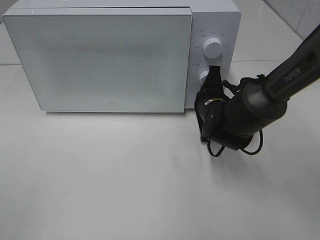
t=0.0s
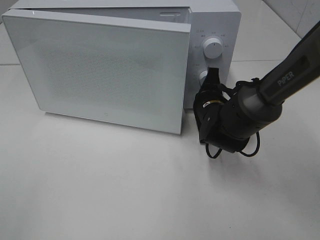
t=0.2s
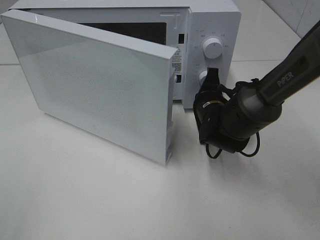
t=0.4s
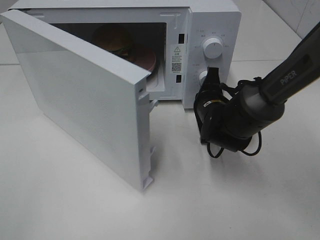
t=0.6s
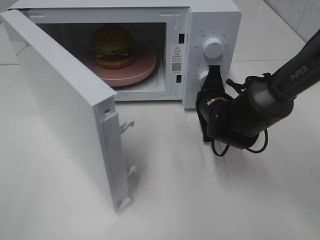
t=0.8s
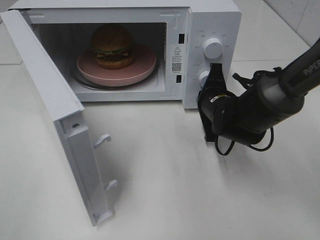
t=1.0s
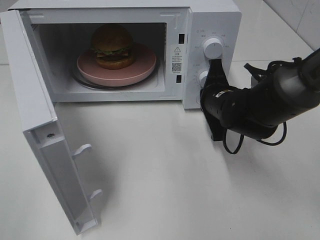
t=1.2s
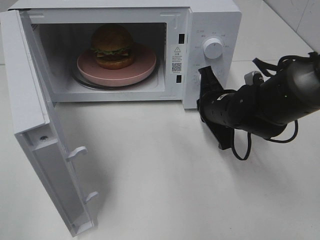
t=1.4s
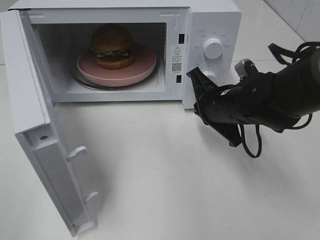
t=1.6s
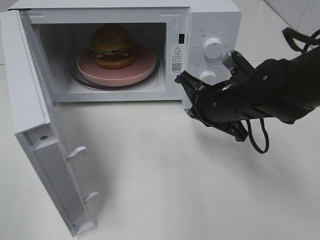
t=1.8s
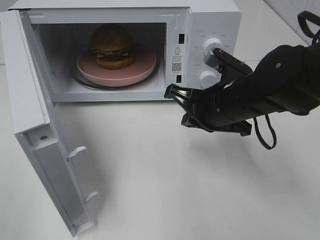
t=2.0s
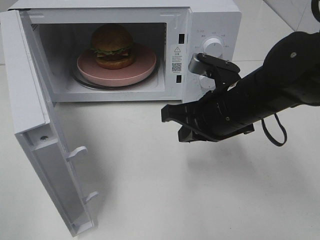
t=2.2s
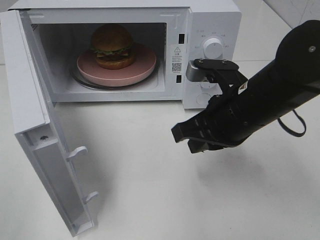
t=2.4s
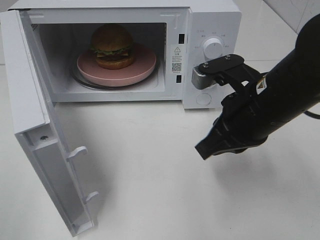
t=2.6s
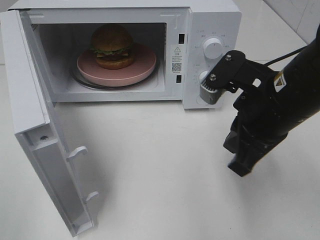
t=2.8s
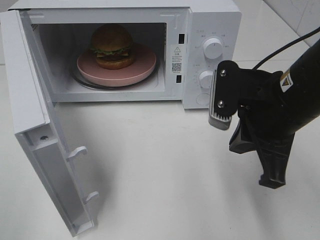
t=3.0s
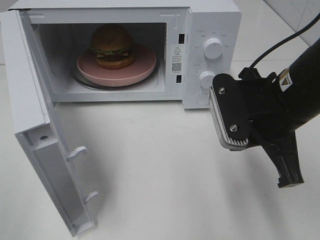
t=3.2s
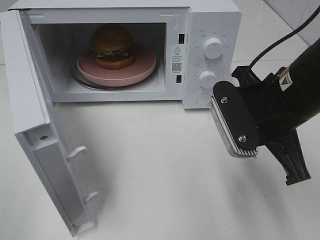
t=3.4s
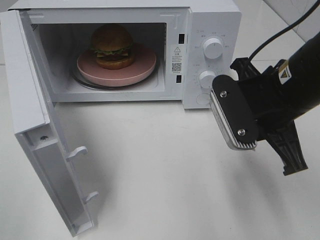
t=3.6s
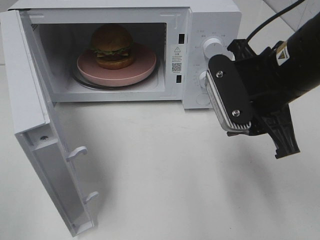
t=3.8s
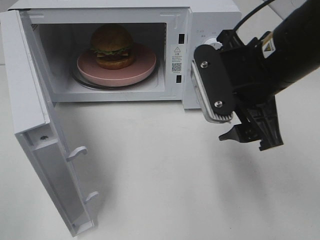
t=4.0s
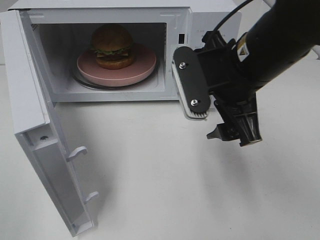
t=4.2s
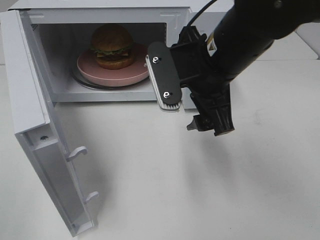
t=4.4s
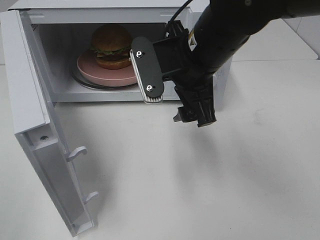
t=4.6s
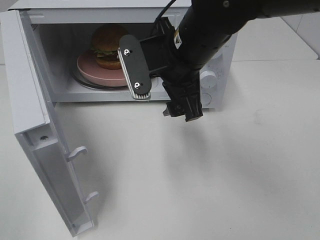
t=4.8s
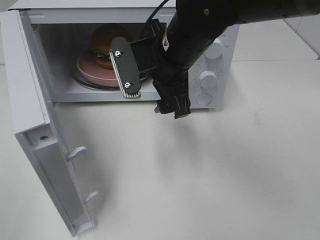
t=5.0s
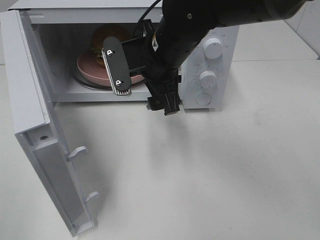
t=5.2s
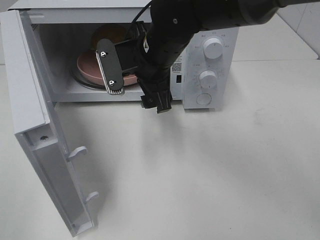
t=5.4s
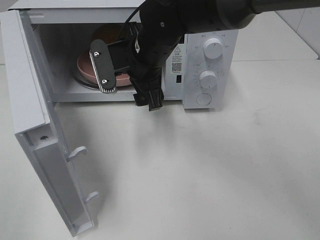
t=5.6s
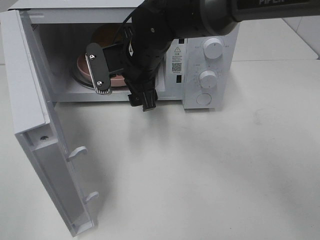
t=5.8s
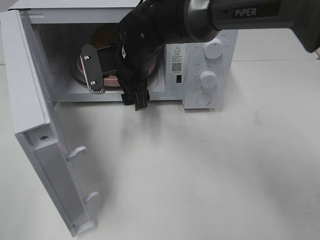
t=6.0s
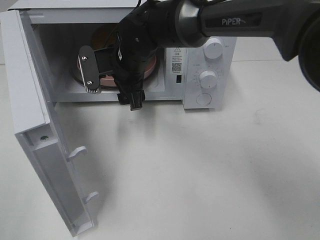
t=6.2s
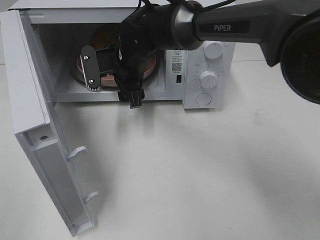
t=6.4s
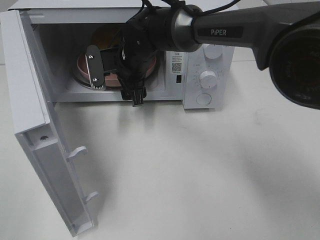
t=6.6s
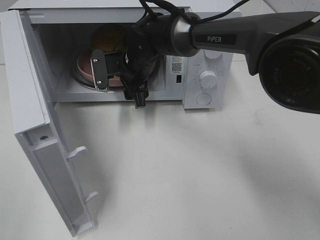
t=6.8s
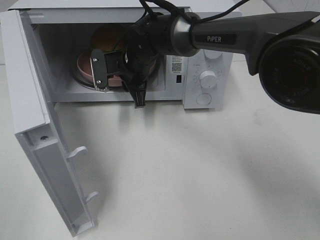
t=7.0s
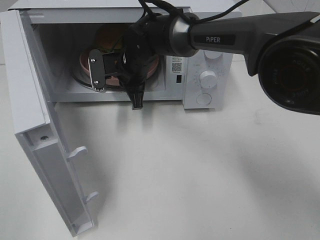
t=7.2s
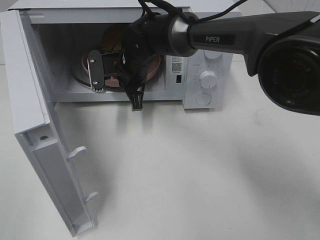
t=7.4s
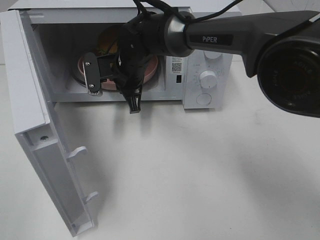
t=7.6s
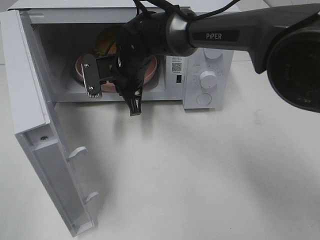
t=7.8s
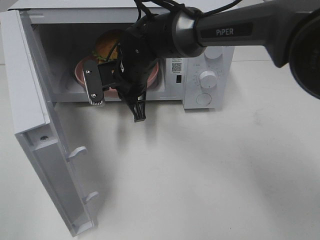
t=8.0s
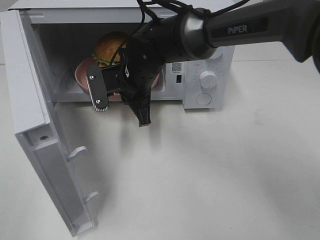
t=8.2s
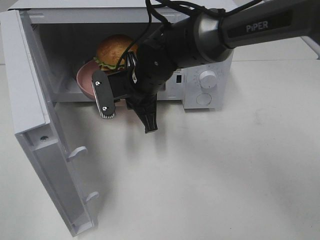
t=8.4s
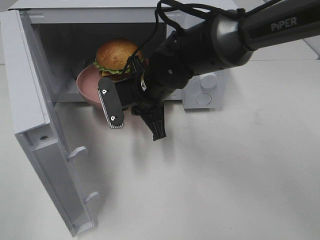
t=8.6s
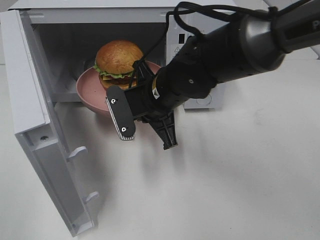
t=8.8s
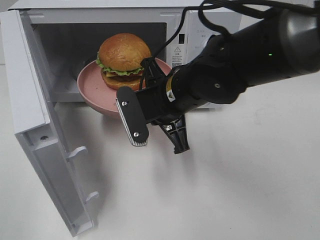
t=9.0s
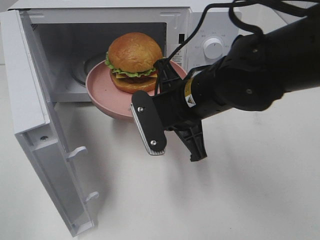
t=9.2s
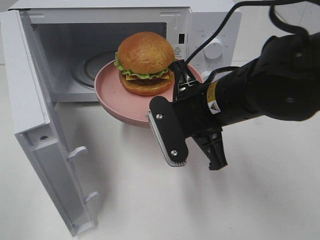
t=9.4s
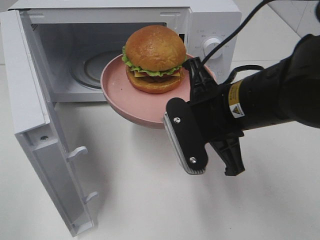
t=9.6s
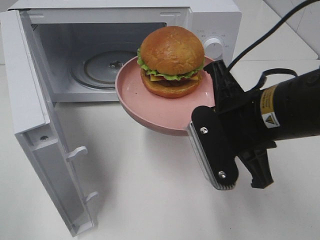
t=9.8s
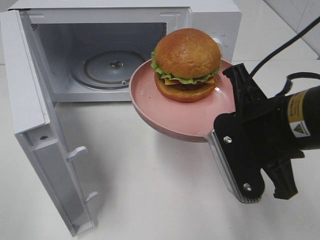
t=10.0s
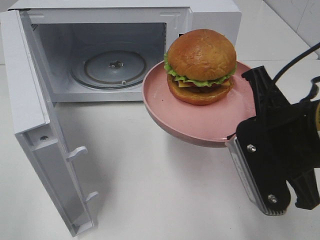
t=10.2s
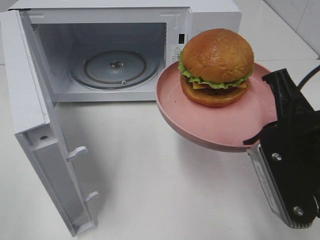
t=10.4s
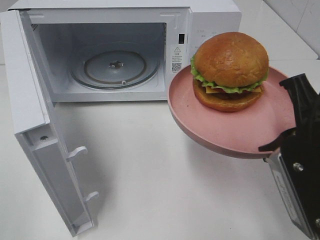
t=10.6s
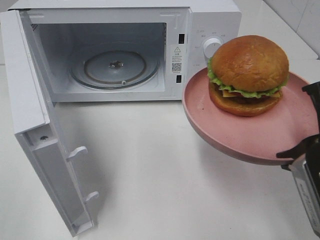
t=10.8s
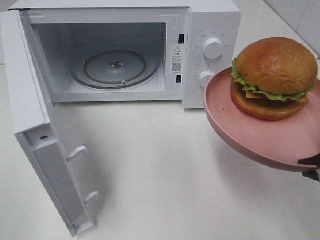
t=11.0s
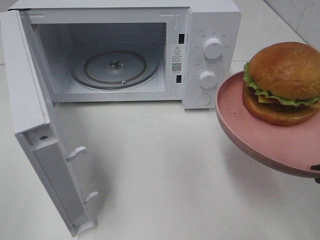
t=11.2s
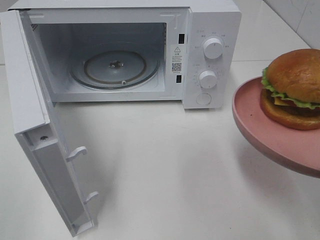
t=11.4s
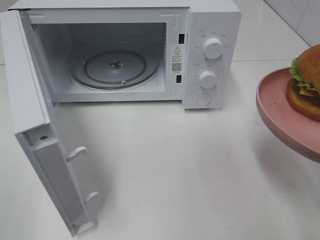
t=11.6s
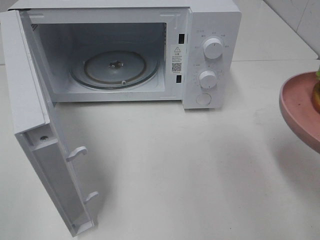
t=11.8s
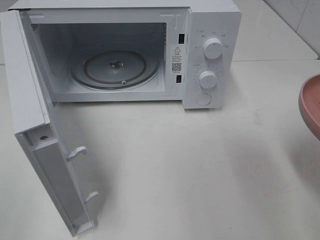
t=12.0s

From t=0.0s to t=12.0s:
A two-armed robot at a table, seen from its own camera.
Task of the whole recording: Heat the burger.
Step, from t=1.2s to t=7.2s: Right hand: grab the plate with the hamburger.
From t=0.0s to t=1.6s: The right gripper moves upward, roughly 5 cm.
From t=1.6s to t=3.0s: The right gripper goes some 15 cm upward and backward.
From t=3.0s to t=4.4s: The right gripper shifts roughly 10 cm to the left and forward, and opens its fingers.
From t=4.4s to t=6.0s: The right gripper is displaced forward, to the left and downward by about 15 cm.
From t=6.0s to t=7.6s: The right gripper changes place by approximately 5 cm, and closes up.
From t=7.6s to t=9.0s: The right gripper travels backward and to the right by approximately 15 cm.
From t=9.0s to t=10.4s: The right gripper heads backward, to the right and upward, covering approximately 20 cm.
From t=10.4s to t=12.0s: The right gripper heads to the right, covering some 10 cm.

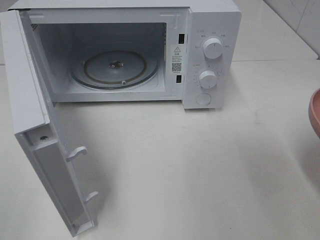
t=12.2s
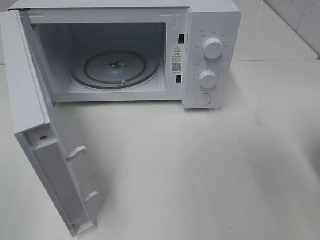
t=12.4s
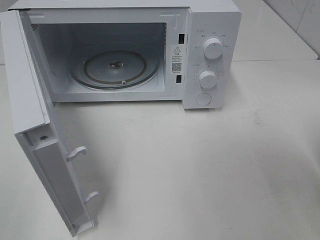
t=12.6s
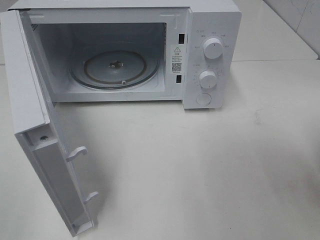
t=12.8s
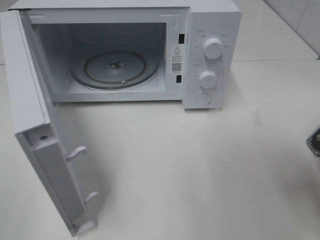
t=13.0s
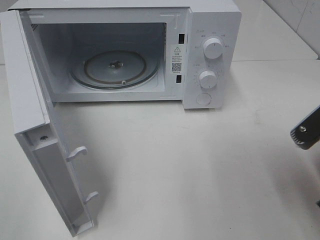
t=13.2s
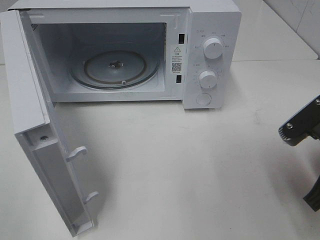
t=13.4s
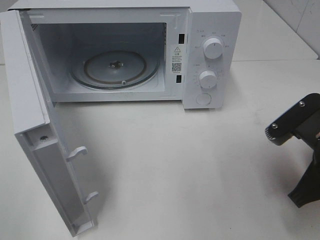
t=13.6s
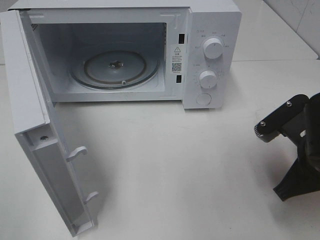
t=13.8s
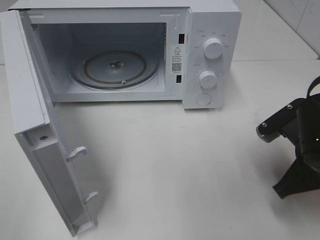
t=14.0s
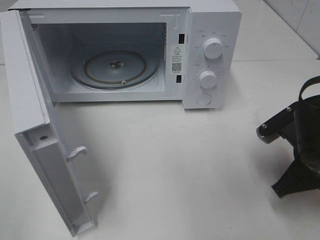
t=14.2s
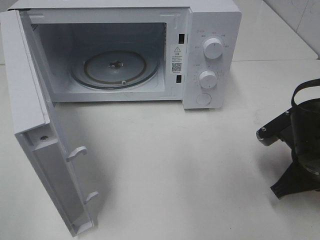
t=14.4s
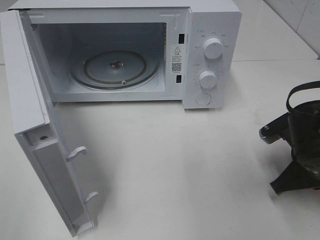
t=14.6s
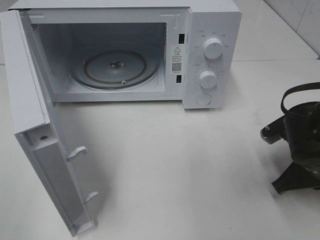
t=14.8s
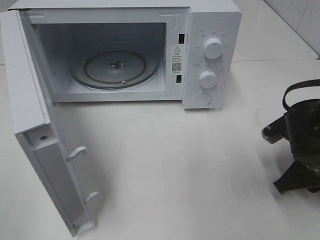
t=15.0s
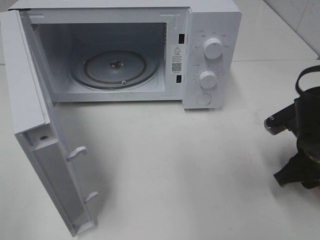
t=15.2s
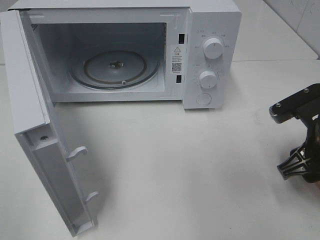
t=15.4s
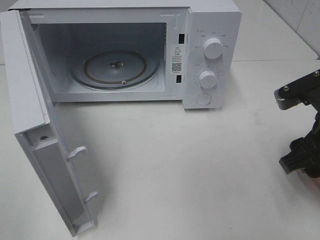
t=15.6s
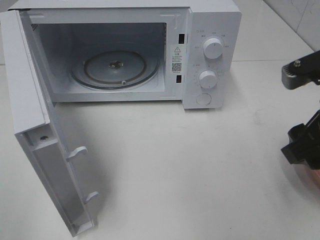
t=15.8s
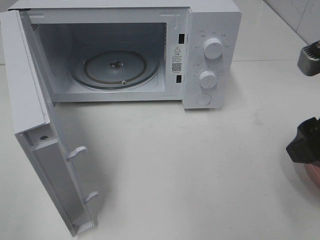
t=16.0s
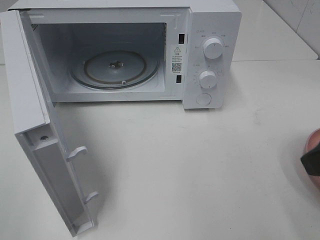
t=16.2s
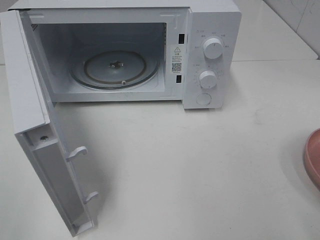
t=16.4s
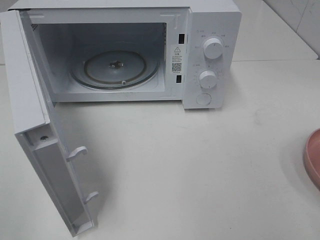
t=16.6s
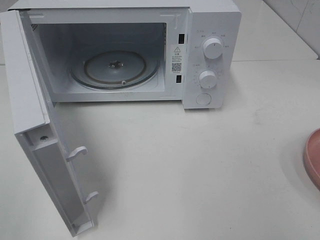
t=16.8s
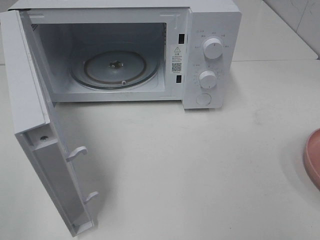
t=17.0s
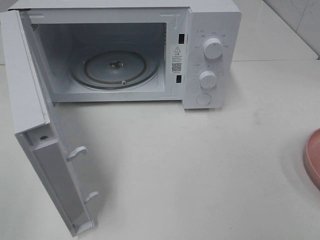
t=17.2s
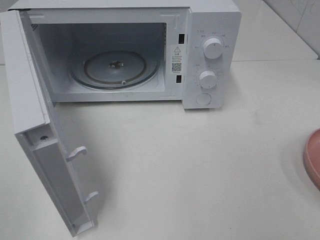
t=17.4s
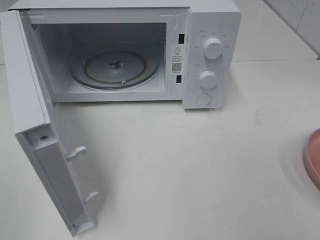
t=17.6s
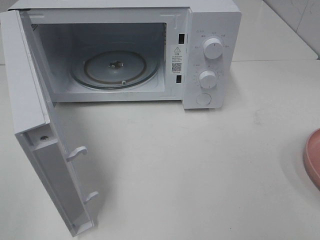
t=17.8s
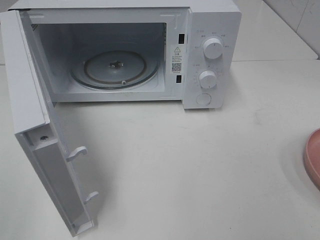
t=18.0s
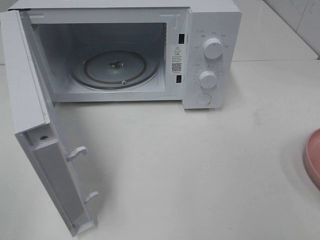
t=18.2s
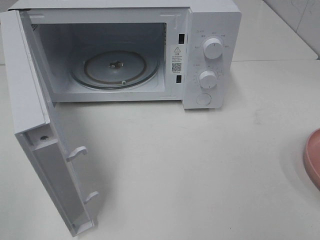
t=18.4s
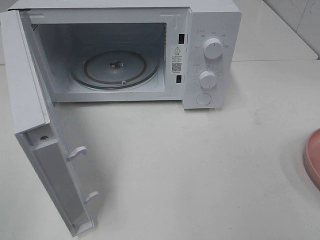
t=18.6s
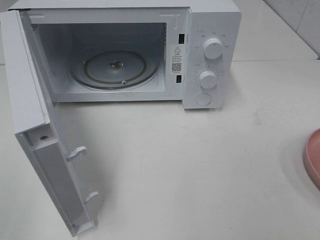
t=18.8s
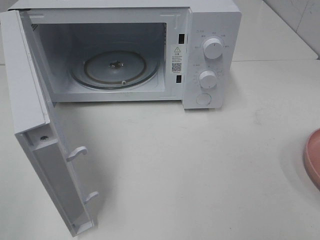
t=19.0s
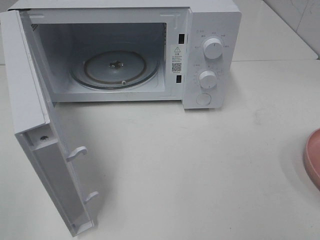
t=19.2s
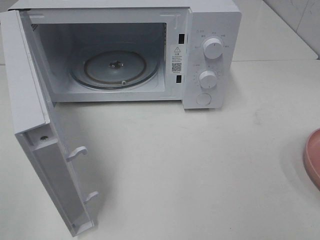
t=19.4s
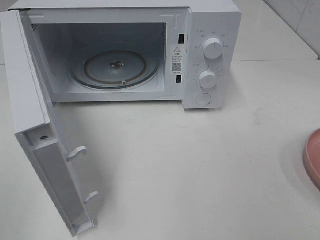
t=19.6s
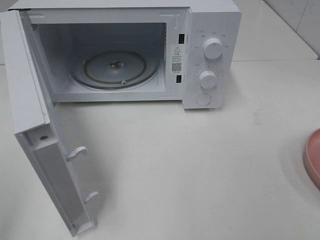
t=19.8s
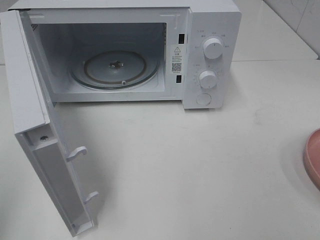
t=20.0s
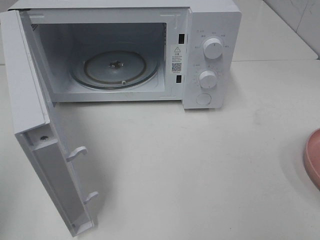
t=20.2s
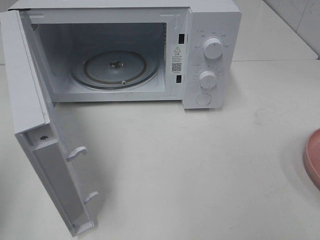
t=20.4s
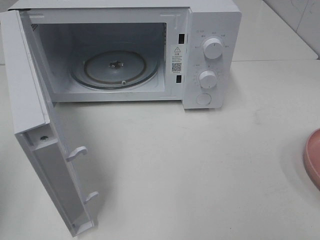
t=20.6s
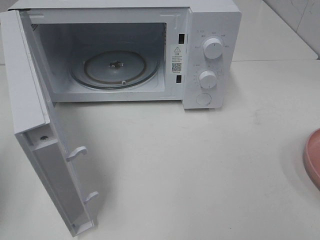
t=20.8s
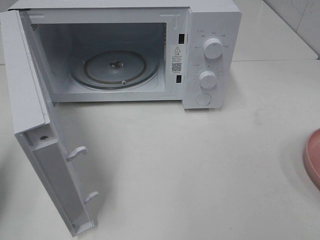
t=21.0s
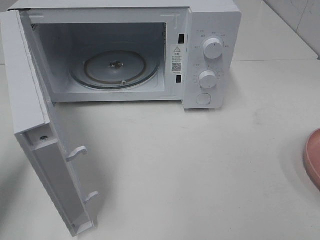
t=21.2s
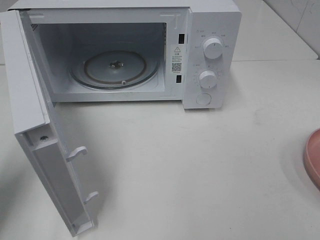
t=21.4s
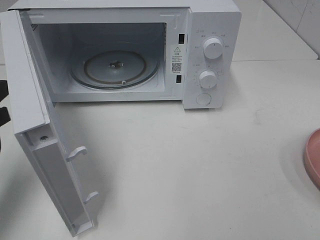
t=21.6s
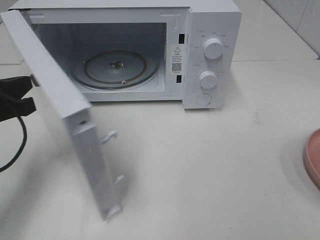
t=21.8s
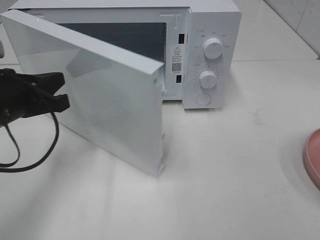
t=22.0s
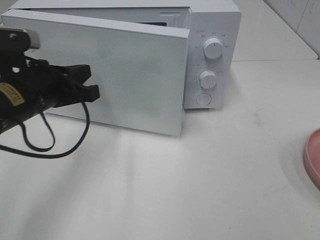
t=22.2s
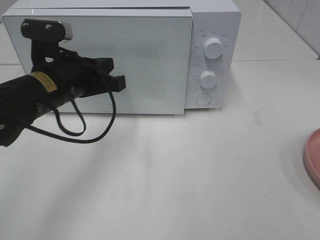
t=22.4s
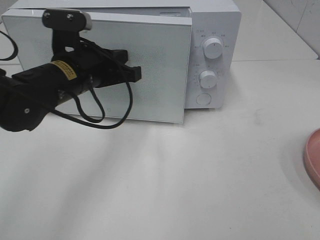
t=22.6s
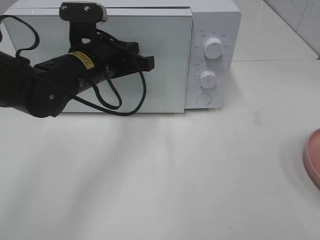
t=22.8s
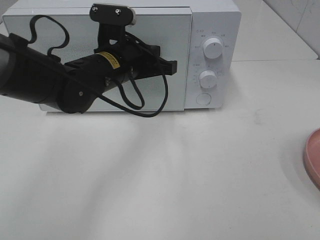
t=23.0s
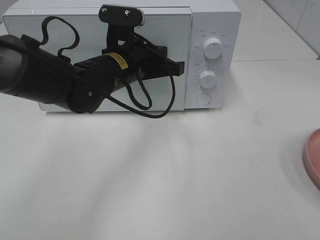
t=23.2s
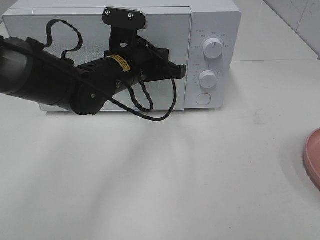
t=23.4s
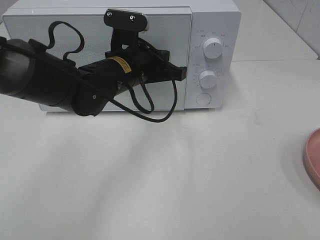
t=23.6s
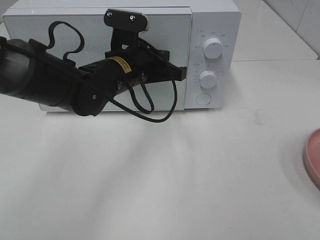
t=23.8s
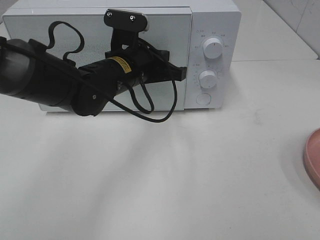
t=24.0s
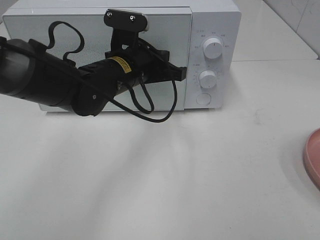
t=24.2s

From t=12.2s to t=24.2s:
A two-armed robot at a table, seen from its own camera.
Task of the whole recording: Heat the burger.
Step, from t=12.2s to t=15.2s: Right hand: place the plate on the table.
From t=12.2s to t=13.8s: The right gripper shifts roughly 10 cm forward, downward and to the left.
From t=13.8s to t=15.2s: The right gripper changes place by some 5 cm, and opens.
From t=15.2s to t=16.6s: The right gripper travels upward and backward by some 25 cm.
From t=19.8s to t=21.2s: The left gripper goes approximately 20 cm forward and downward, and closes up.
From t=21.2s to t=22.6s: The left gripper moves to the right and forward, approximately 25 cm.
From t=22.6s to t=24.2s: The left gripper goes roughly 5 cm to the right.
